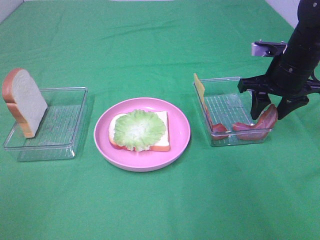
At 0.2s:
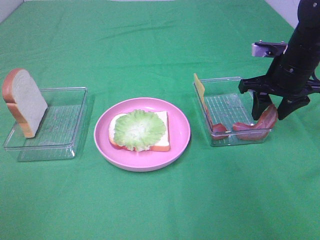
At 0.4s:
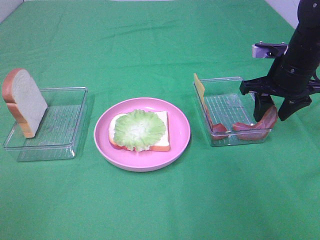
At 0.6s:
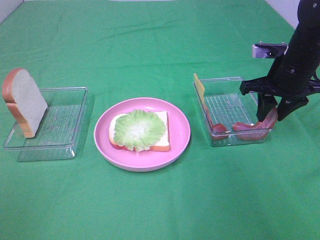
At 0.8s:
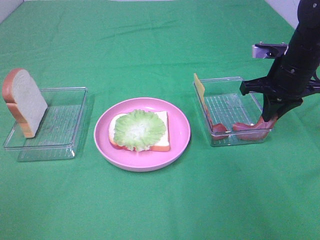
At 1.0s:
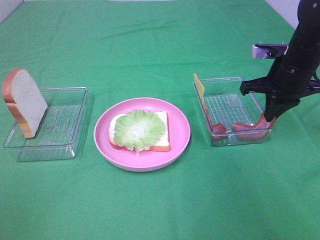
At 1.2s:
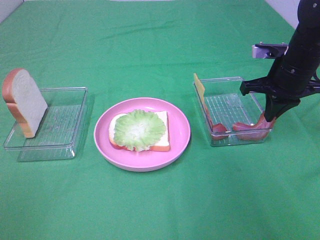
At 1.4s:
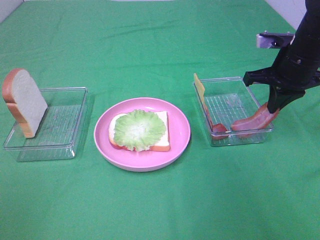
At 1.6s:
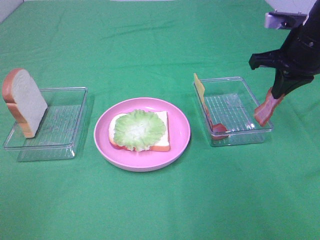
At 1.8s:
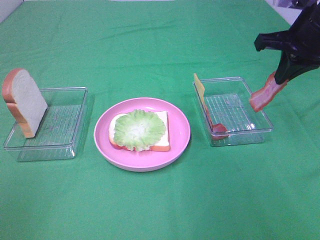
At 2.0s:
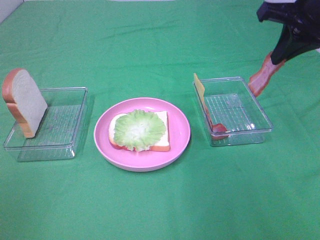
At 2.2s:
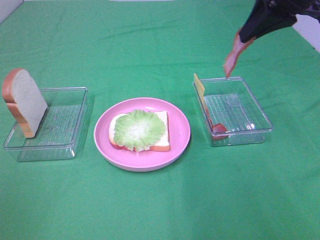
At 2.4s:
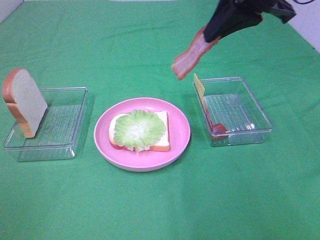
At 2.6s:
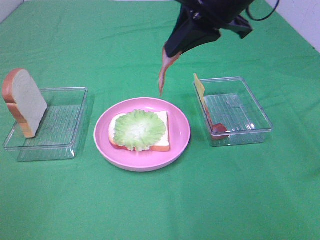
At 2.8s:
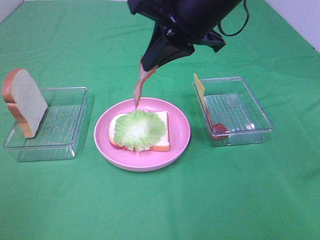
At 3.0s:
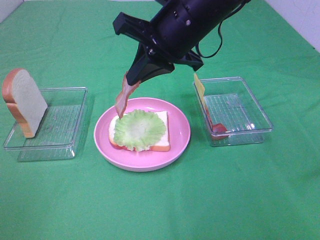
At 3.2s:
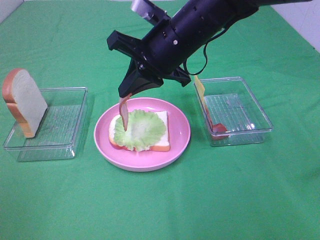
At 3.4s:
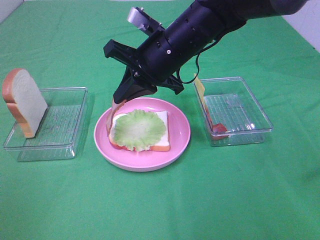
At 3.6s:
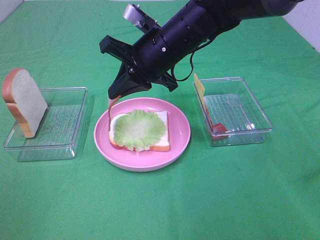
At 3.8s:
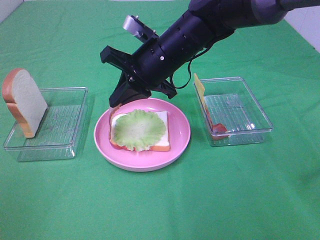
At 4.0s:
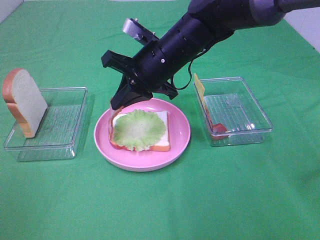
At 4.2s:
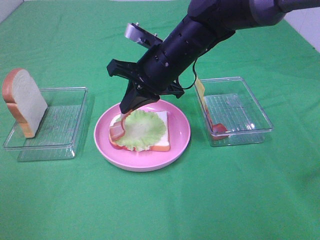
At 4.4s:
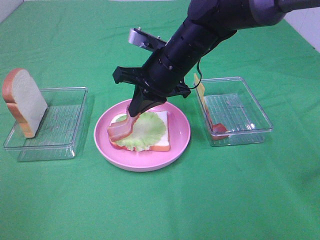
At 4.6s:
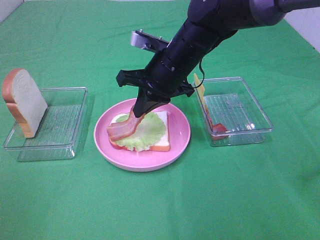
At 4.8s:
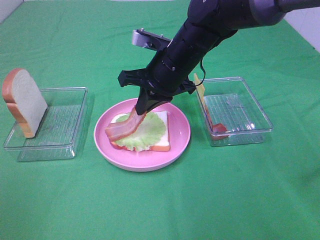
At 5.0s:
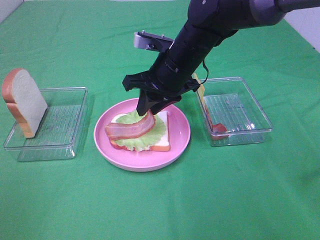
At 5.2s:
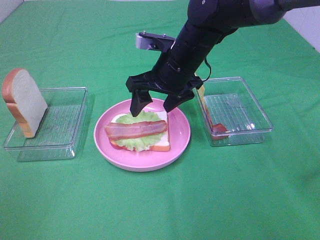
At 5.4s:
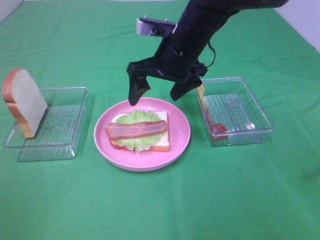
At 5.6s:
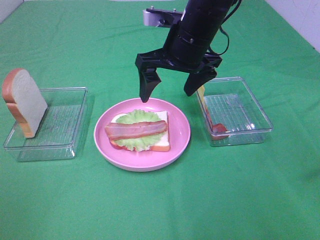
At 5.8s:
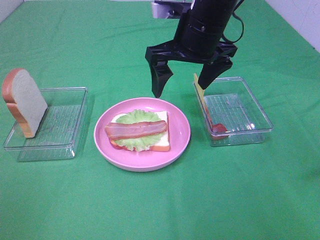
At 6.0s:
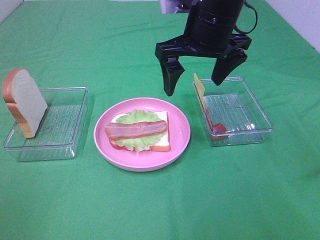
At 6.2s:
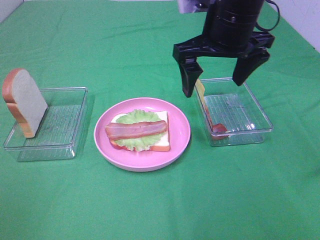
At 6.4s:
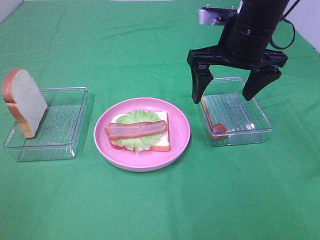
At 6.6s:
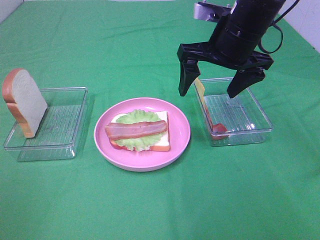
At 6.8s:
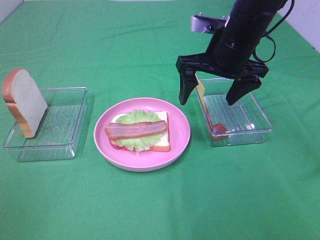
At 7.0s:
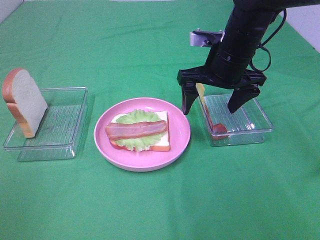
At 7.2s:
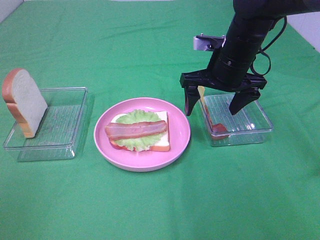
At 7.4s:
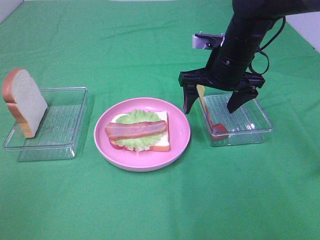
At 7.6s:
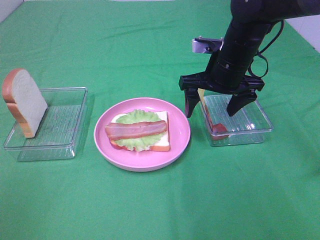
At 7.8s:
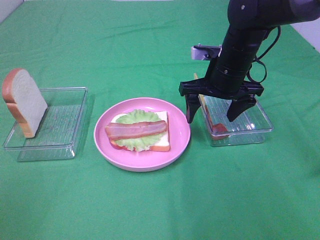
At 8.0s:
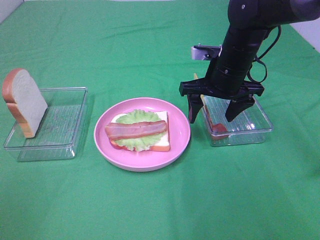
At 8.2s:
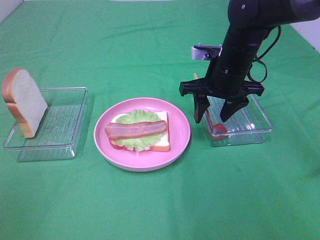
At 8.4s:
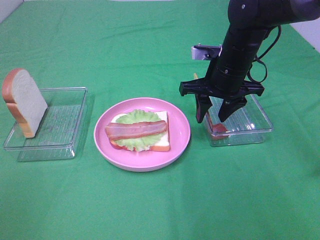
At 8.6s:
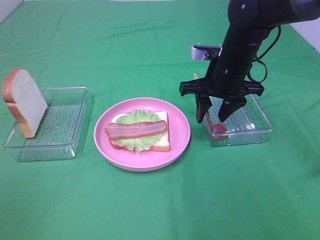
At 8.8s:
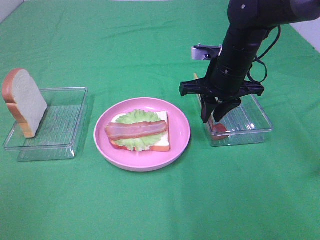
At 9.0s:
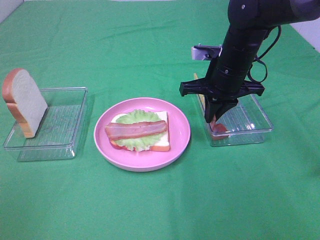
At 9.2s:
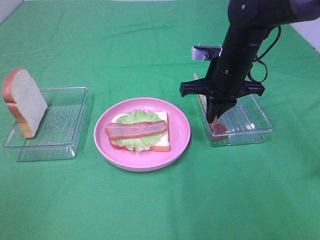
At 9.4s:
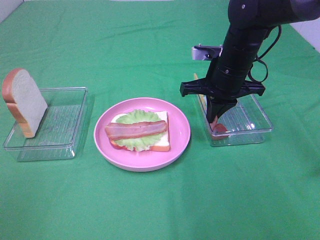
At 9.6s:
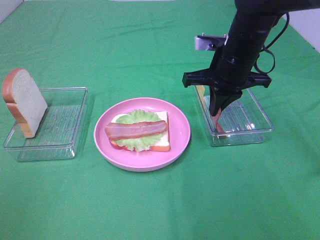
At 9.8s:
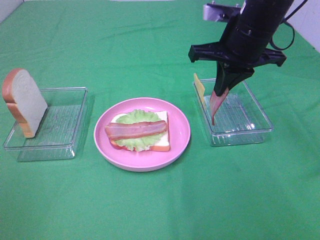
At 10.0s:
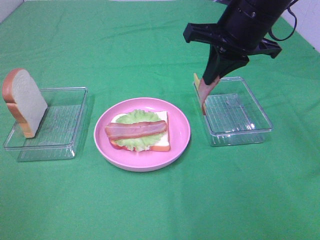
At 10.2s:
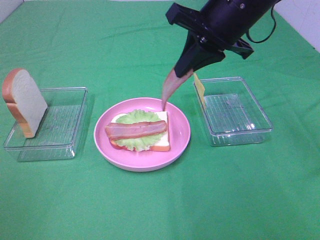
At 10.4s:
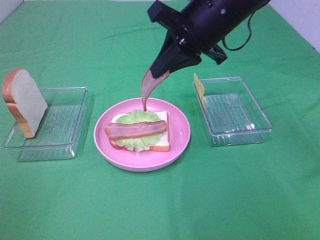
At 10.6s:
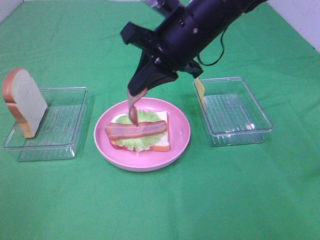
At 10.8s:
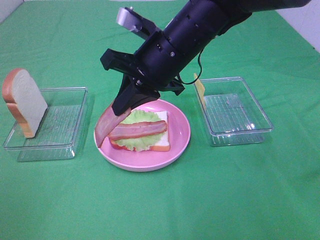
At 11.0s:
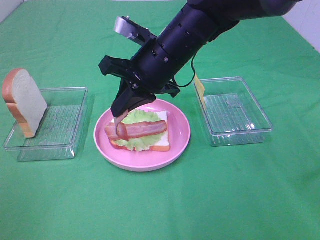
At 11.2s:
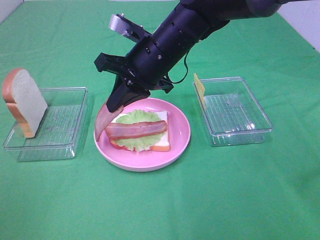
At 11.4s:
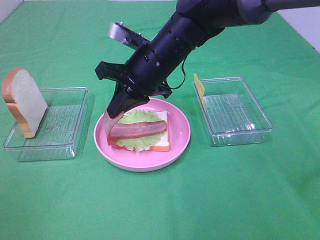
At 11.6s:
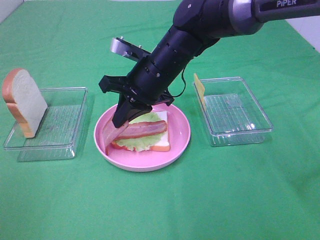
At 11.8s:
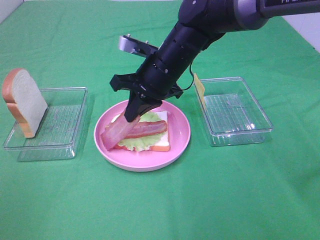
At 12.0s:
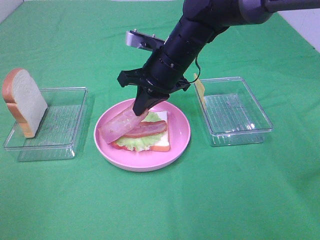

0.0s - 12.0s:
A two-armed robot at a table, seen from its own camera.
Task of the whole recording: Make sandwiches.
Step, 1.6s - 5.2s: Right hand:place bacon on lettuce slice.
Step, 5.4s - 9.4s: Right hand:grab the bacon.
0.0s - 1.6s: The right gripper is displaced upward by some 5 cm, and closes.
1.6s - 3.0s: The right gripper is displaced to the left by roughly 20 cm.
3.0s - 4.4s: The right gripper travels downward by about 5 cm.
4.4s - 6.0s: The right gripper shifts approximately 10 cm upward, and opens up.
6.0s - 7.6s: The right gripper is displaced downward and to the right by about 10 cm.
7.6s - 9.0s: The right gripper closes up.
9.0s - 10.4s: The right gripper shifts about 10 cm upward.
10.4s - 12.0s: The right gripper heads downward and to the left, covering approximately 10 cm.

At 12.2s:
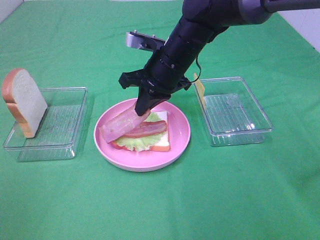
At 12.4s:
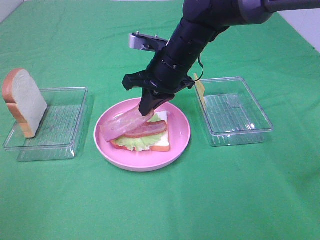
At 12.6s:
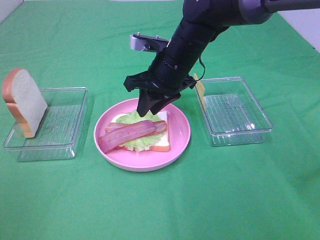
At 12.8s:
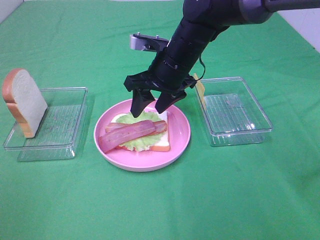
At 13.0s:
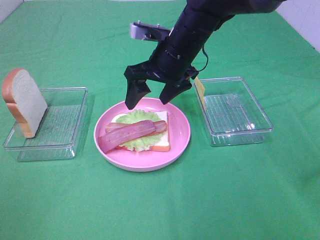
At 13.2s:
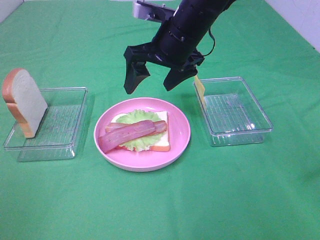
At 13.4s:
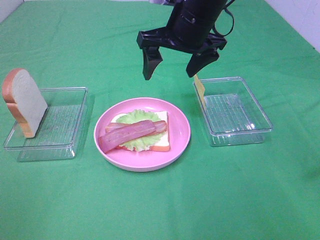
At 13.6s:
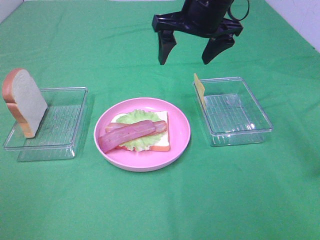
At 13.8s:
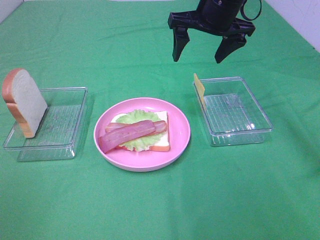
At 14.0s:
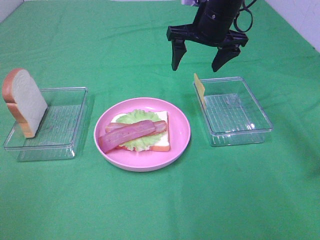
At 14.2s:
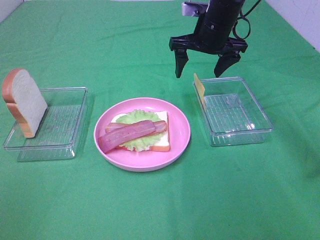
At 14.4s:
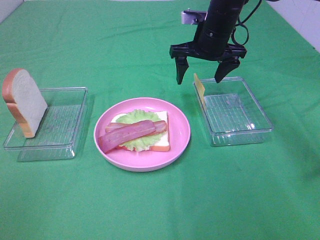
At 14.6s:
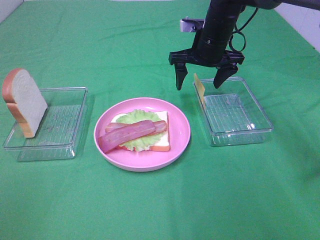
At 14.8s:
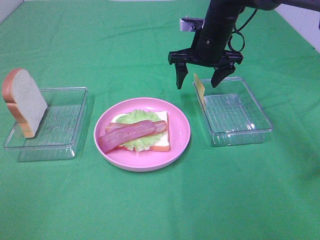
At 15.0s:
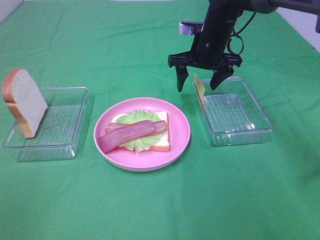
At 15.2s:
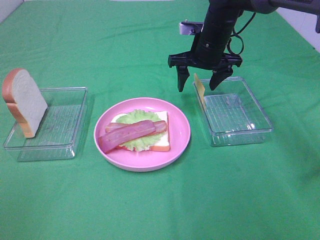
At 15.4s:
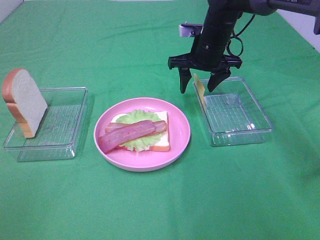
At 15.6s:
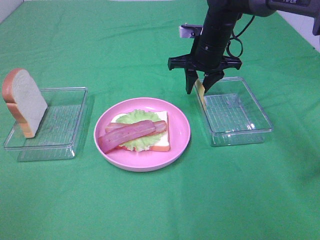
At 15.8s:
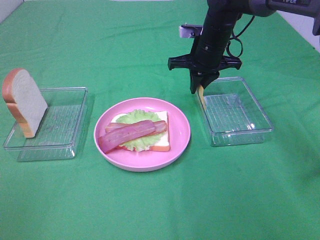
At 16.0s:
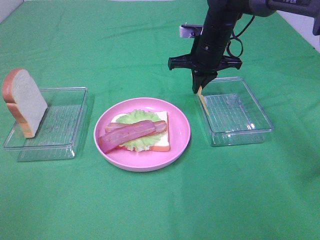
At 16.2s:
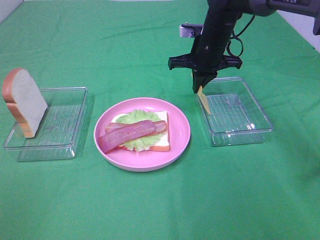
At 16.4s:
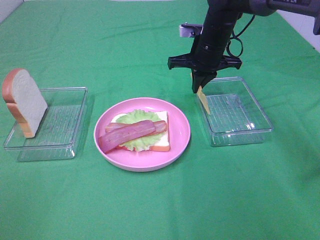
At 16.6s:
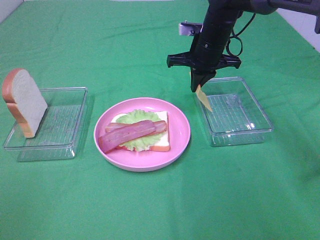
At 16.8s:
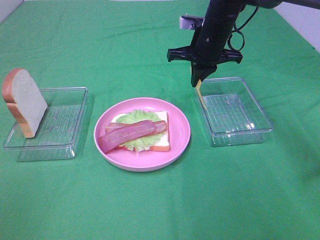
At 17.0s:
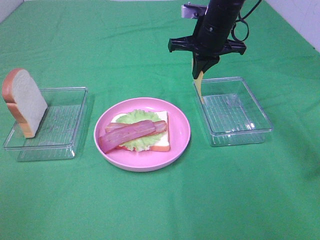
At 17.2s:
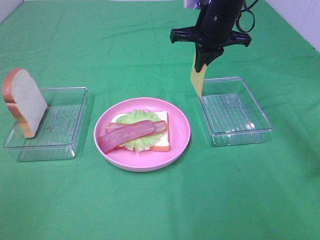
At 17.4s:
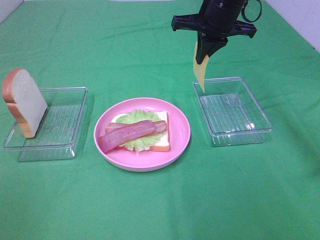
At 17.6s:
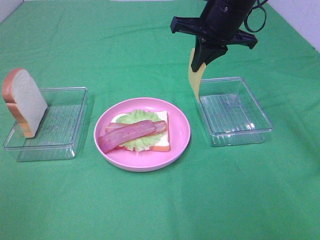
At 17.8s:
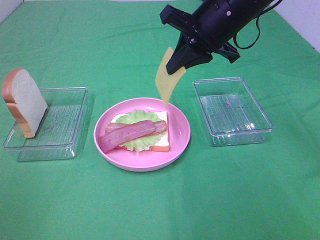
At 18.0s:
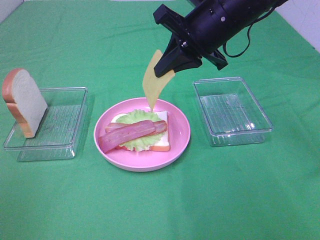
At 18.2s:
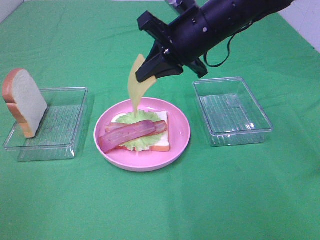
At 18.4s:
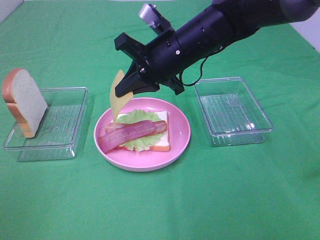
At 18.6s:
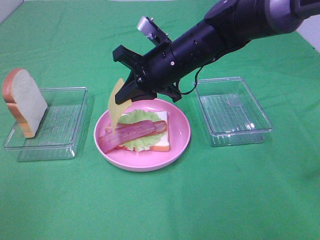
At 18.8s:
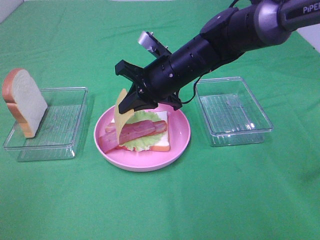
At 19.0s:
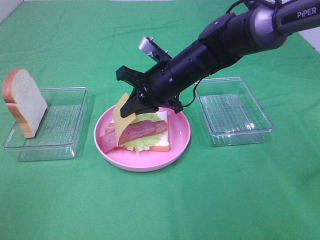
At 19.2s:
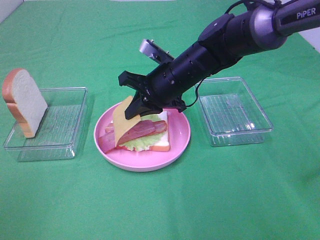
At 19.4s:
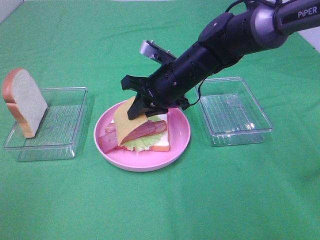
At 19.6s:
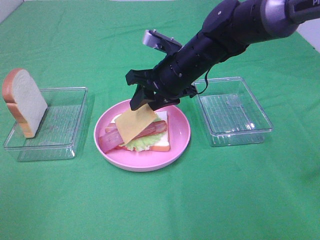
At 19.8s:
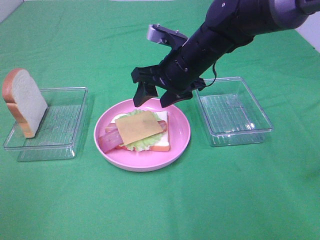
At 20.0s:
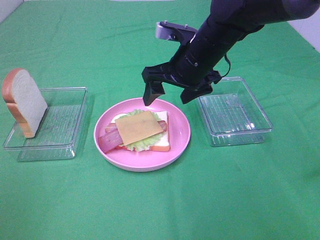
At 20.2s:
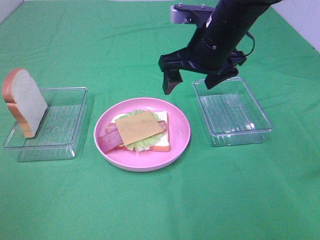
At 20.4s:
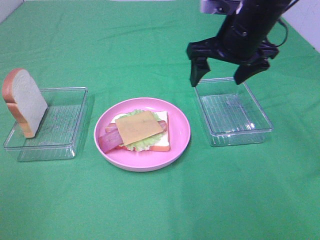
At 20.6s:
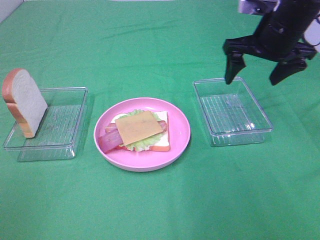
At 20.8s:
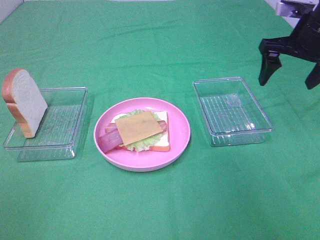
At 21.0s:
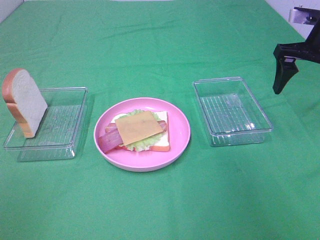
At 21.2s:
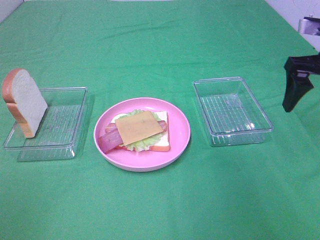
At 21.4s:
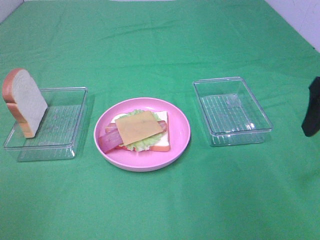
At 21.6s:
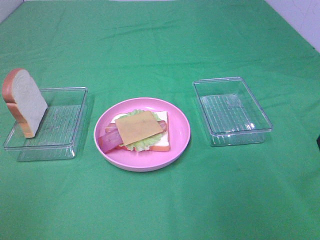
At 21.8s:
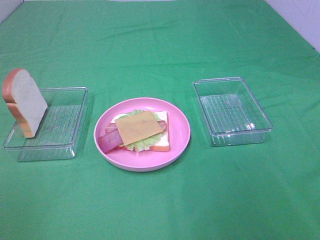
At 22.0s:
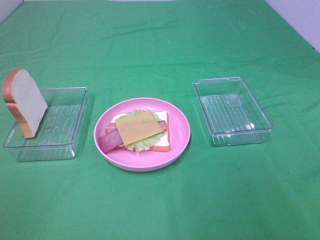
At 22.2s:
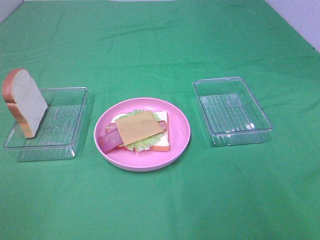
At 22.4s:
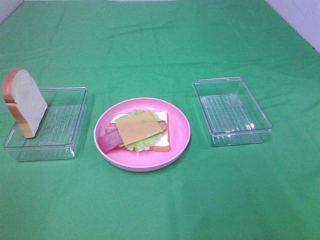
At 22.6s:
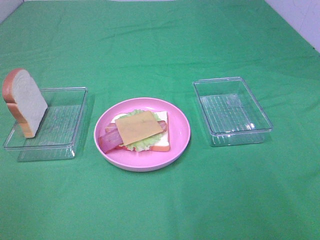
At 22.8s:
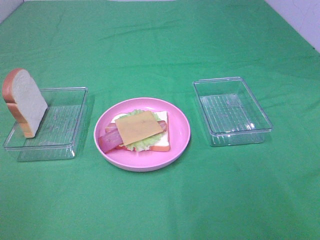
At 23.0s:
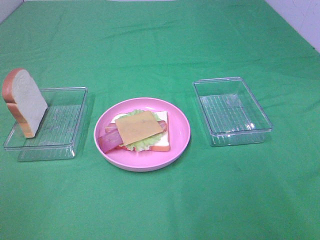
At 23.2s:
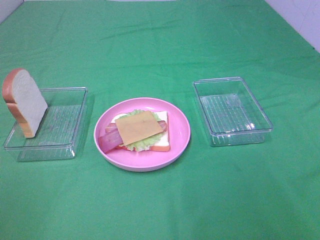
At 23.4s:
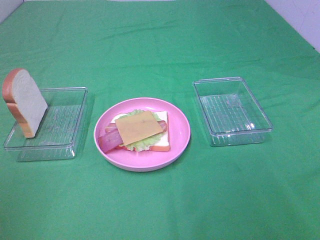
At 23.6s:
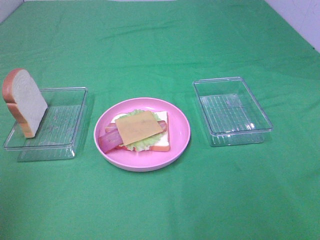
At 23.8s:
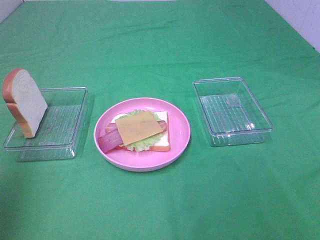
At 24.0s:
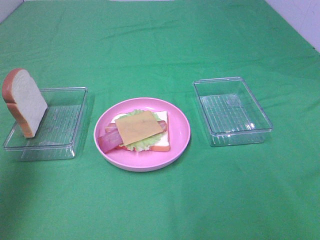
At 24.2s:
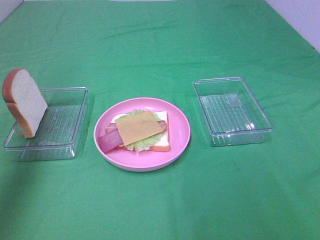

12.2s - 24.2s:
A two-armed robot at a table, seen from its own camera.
Task of the whole recording: Make sandwiches.
Step, 12.8s - 16.2s: Right hand:grab the cheese slice.
Step, 16.4s - 19.8s: Right hand:place the cheese slice on top of the bacon.
12.2s - 13.8s: The right gripper travels upward, to the right and forward by about 15 cm, and opens.
13.8s - 15.2s: The right gripper heads downward, covering roughly 10 cm.
15.2s - 16.6s: The right gripper closes.
16.6s - 18.2s: The right gripper is displaced backward and upward by some 15 cm.
18.2s - 19.8s: The right gripper heads downward, covering roughly 5 cm, and opens.
19.8s - 21.2s: The right gripper is displaced to the right by some 20 cm.
21.2s - 22.6s: The right gripper travels backward by some 30 cm.
22.6s - 24.2s: The left gripper is displaced forward by roughly 35 cm.
